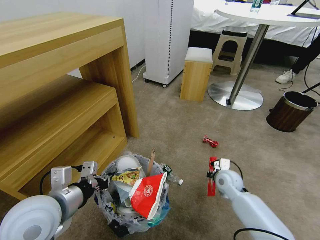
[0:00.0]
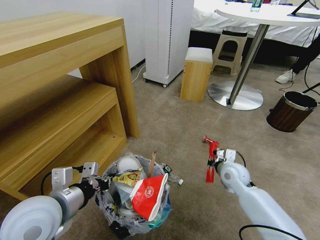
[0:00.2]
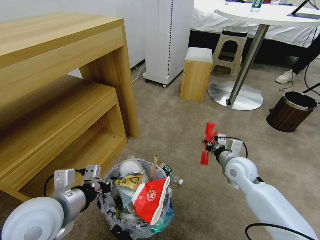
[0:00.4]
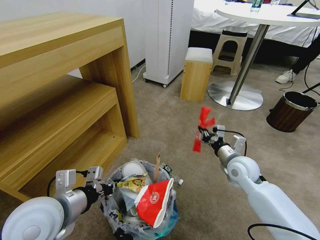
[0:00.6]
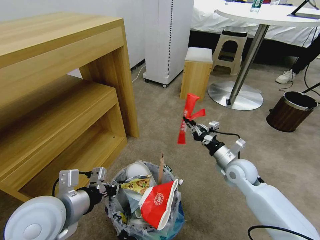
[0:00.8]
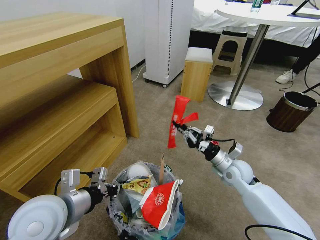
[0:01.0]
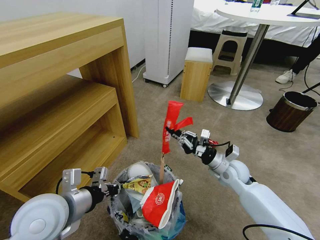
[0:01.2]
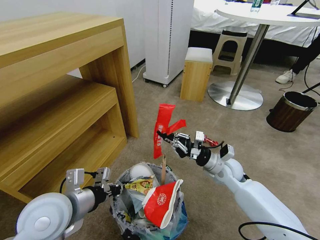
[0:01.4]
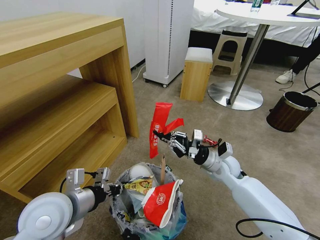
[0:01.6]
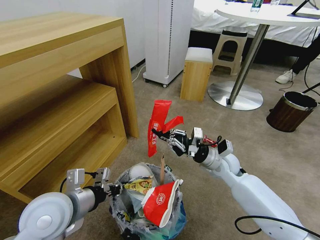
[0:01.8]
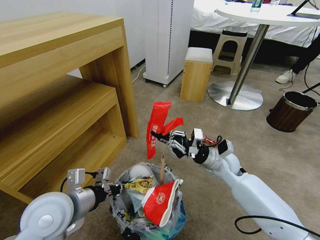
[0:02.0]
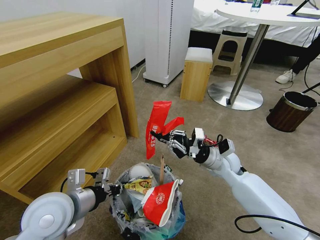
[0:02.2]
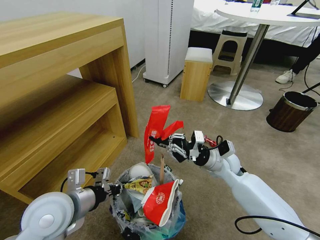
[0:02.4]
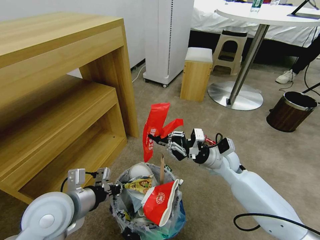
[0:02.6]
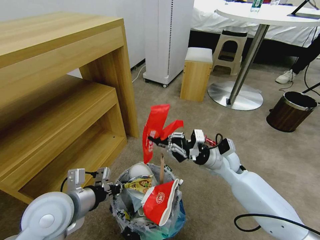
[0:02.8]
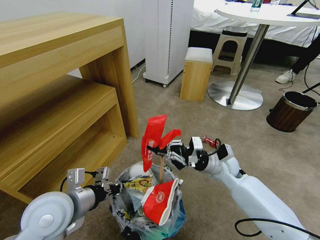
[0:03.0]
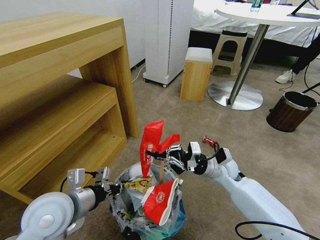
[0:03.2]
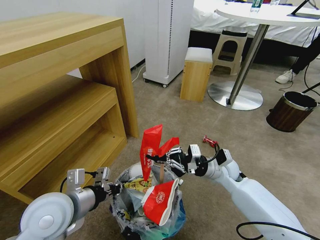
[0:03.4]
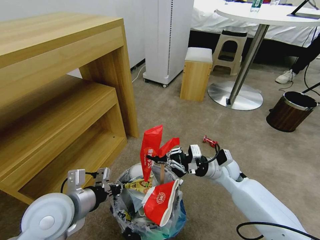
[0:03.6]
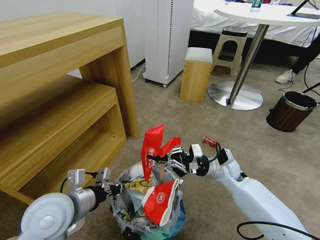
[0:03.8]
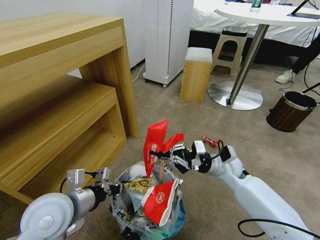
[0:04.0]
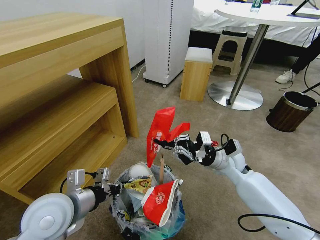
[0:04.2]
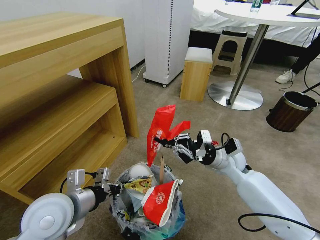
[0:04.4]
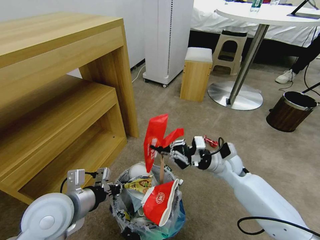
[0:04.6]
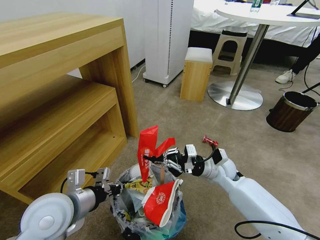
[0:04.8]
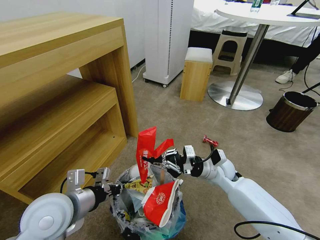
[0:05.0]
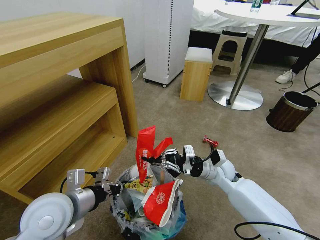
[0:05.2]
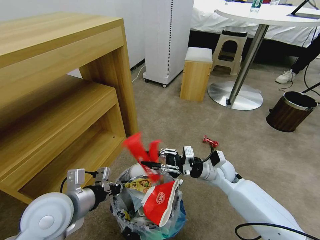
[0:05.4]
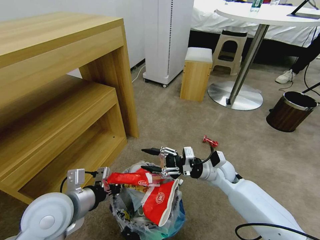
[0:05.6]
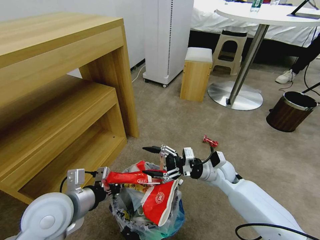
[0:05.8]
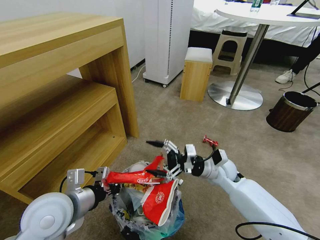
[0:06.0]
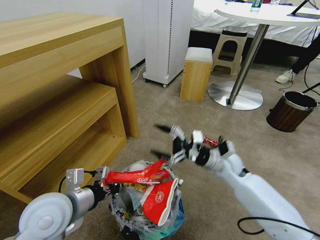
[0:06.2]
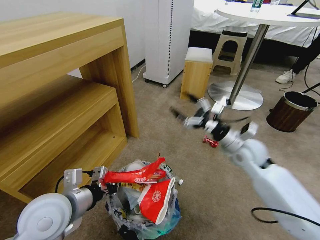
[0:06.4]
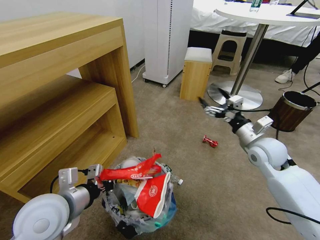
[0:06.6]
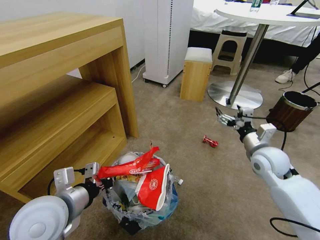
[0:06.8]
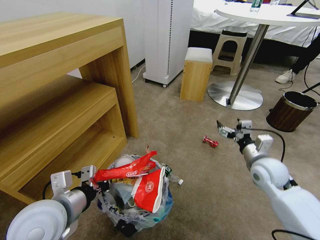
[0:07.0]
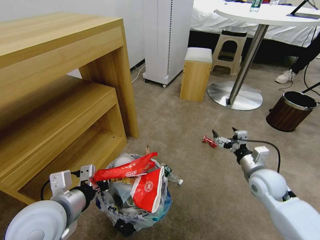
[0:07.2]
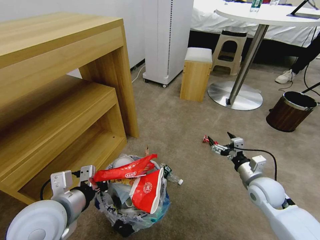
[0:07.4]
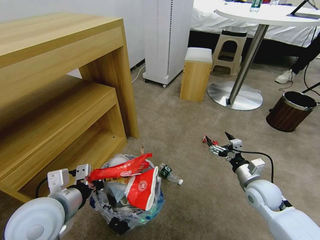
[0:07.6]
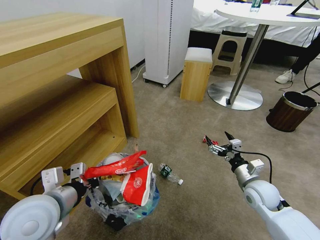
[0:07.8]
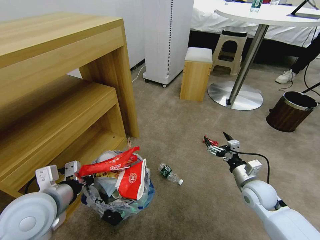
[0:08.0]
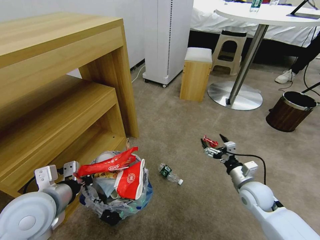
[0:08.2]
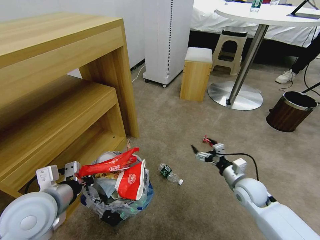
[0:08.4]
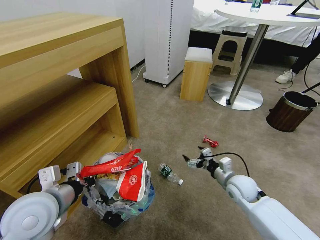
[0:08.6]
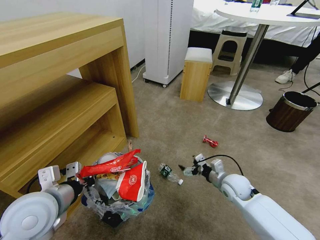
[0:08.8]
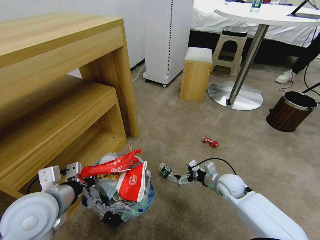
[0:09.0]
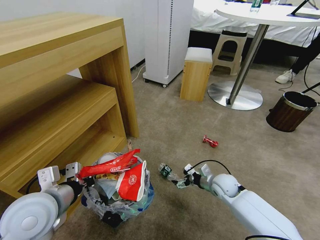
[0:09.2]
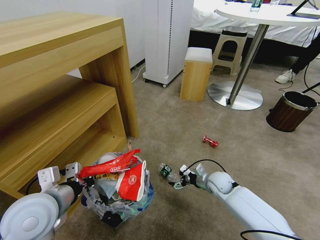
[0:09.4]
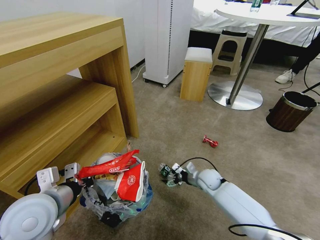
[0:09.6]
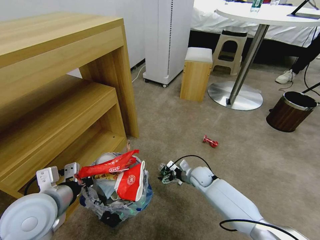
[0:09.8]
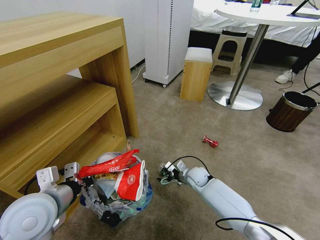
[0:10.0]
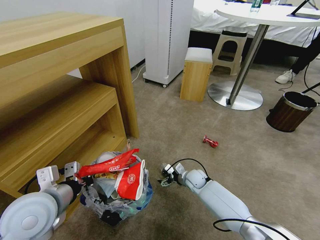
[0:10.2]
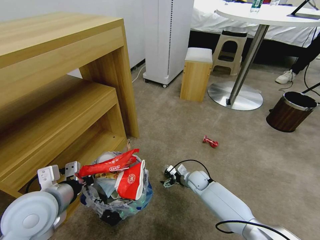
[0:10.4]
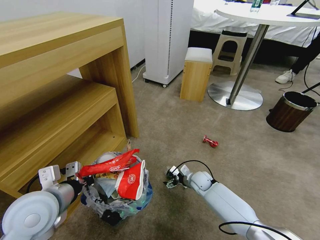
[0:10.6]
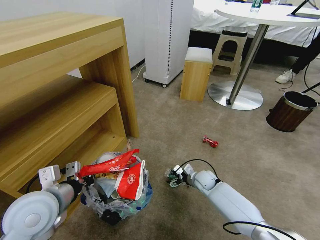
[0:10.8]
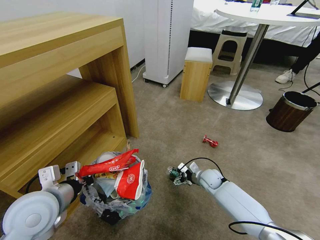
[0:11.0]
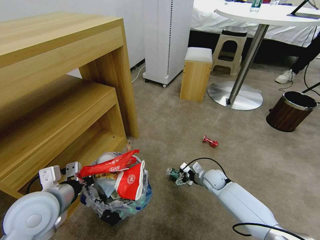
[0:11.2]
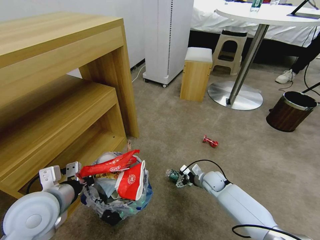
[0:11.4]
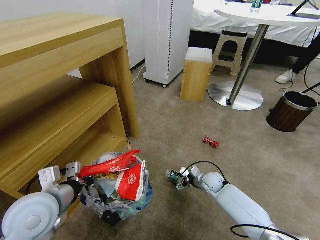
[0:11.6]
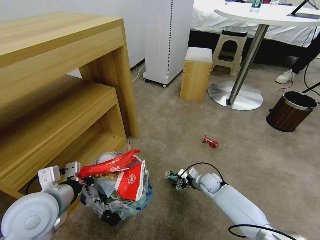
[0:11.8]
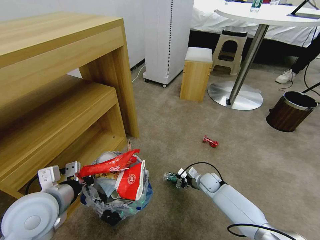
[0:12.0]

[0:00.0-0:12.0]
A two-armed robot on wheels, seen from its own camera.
Task of the whole recording: Pick up the trash bin and place the garbage on the floor into it.
0:00.0 to 0:01.6: The right gripper shifts roughly 10 cm upward.
0:01.6 to 0:04.4: The grippers make only small movements.
0:04.4 to 0:06.0: The right gripper opens.
0:06.0 to 0:07.6: The right gripper heads to the right and backward, covering about 15 cm.
0:07.6 to 0:09.0: The right gripper is displaced to the left, downward and forward by approximately 10 cm.
0:09.0 to 0:10.4: The right gripper heads to the left, downward and forward, covering some 15 cm.
0:10.4 to 0:12.0: The right gripper moves to the right, roughly 5 cm.

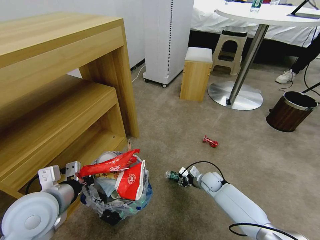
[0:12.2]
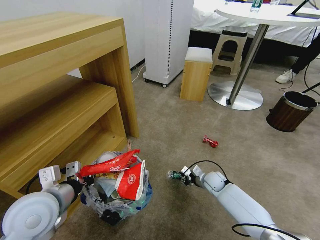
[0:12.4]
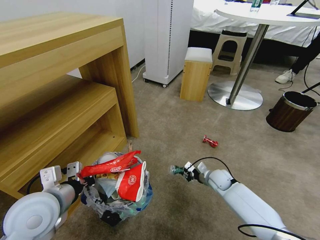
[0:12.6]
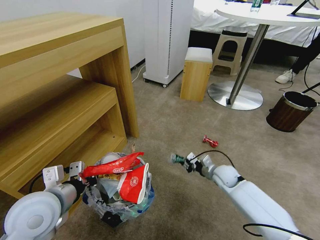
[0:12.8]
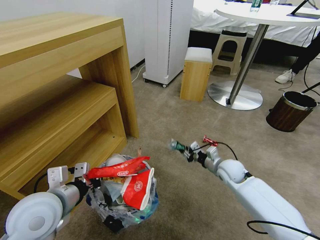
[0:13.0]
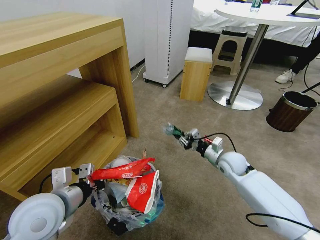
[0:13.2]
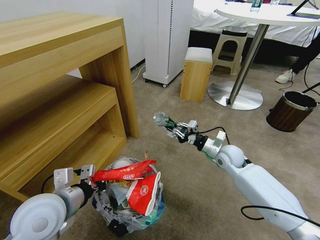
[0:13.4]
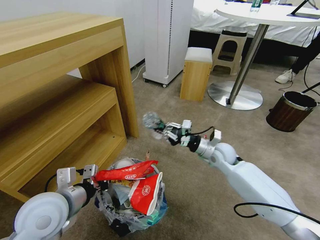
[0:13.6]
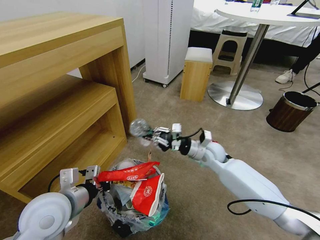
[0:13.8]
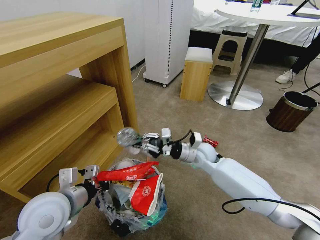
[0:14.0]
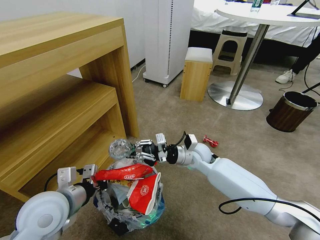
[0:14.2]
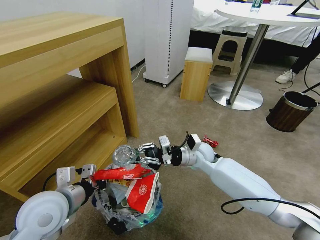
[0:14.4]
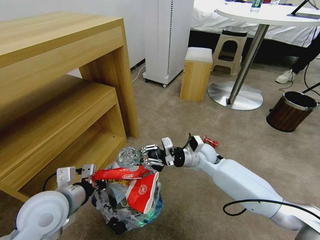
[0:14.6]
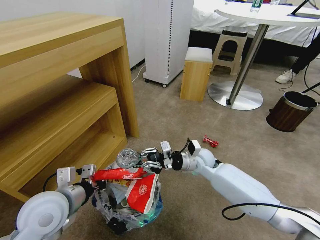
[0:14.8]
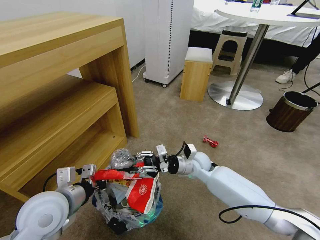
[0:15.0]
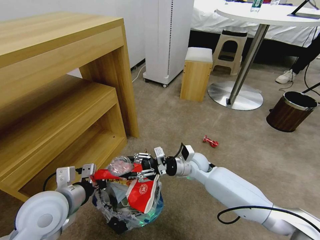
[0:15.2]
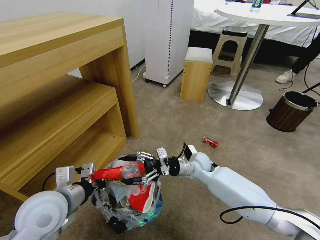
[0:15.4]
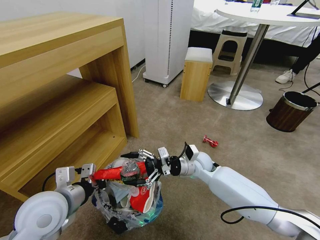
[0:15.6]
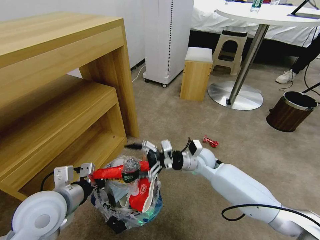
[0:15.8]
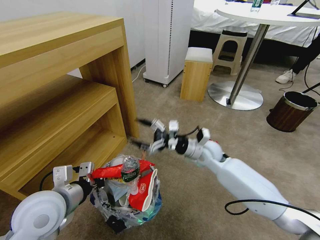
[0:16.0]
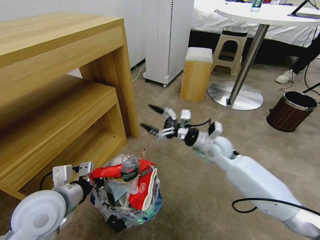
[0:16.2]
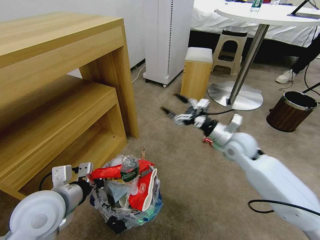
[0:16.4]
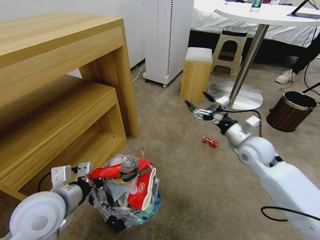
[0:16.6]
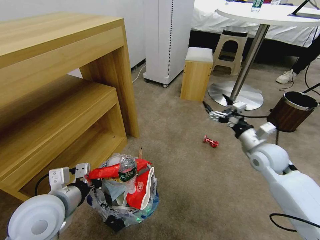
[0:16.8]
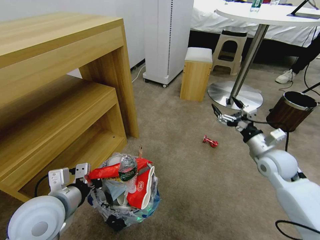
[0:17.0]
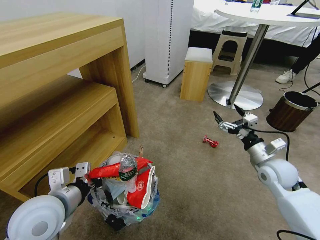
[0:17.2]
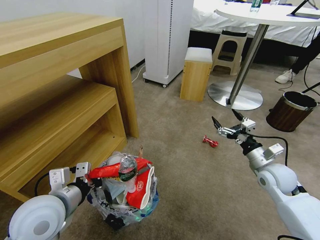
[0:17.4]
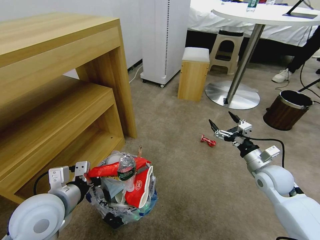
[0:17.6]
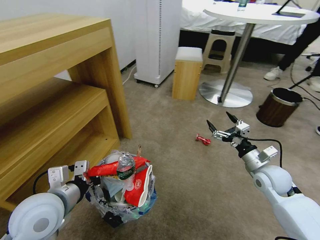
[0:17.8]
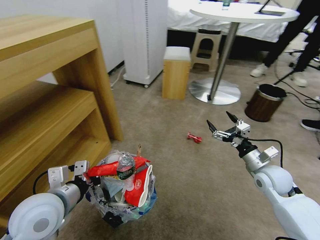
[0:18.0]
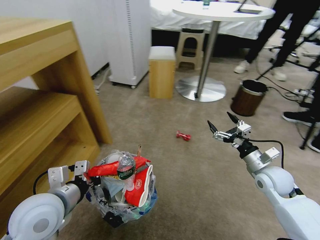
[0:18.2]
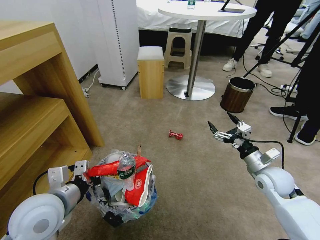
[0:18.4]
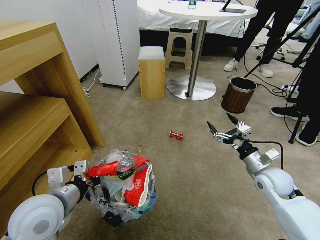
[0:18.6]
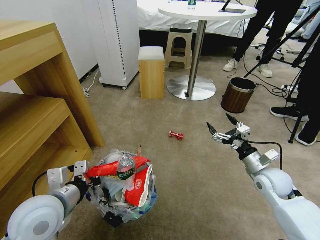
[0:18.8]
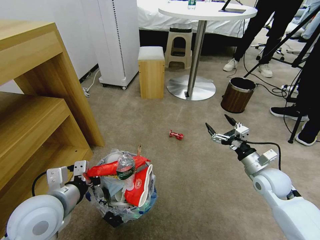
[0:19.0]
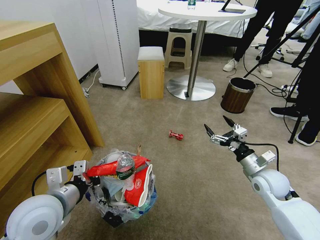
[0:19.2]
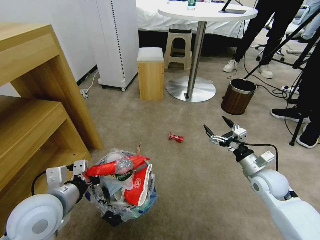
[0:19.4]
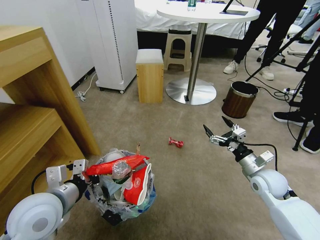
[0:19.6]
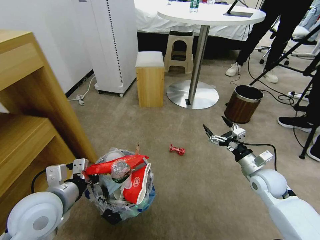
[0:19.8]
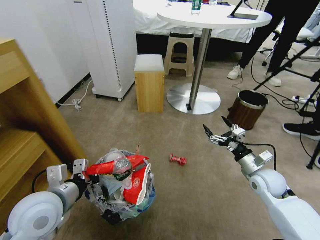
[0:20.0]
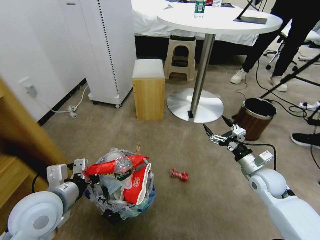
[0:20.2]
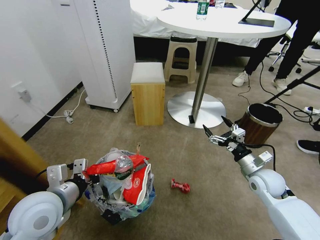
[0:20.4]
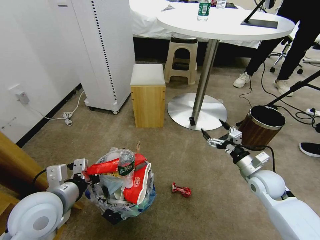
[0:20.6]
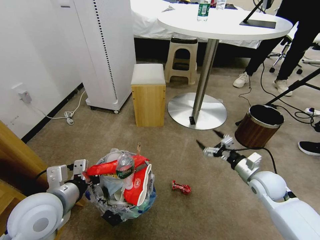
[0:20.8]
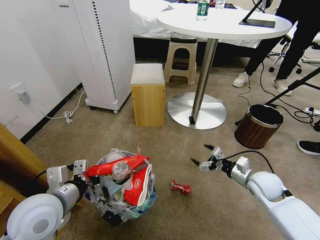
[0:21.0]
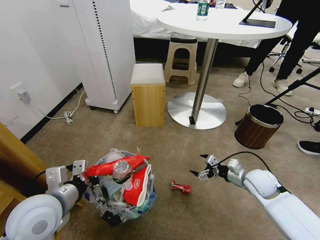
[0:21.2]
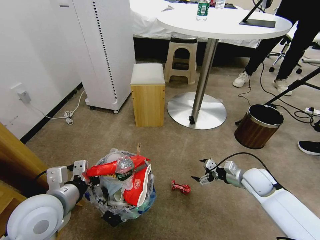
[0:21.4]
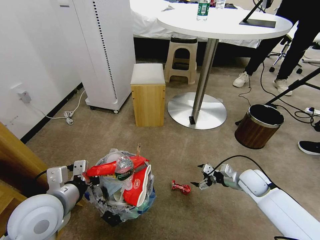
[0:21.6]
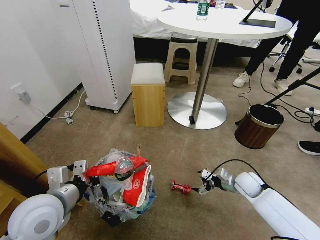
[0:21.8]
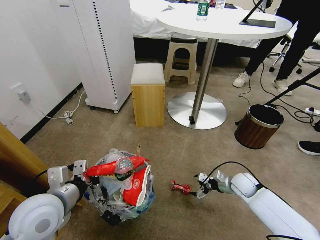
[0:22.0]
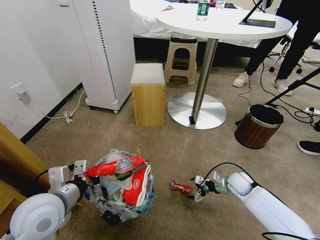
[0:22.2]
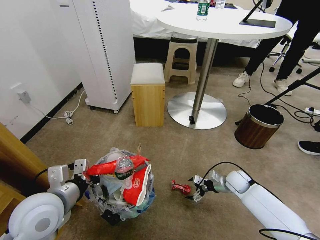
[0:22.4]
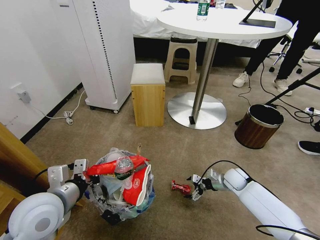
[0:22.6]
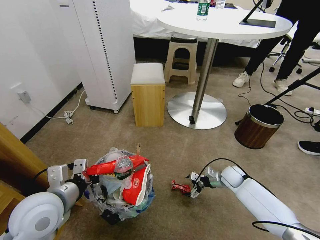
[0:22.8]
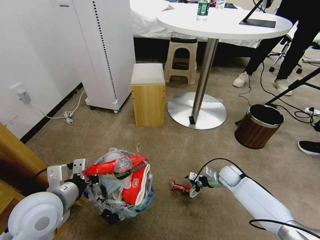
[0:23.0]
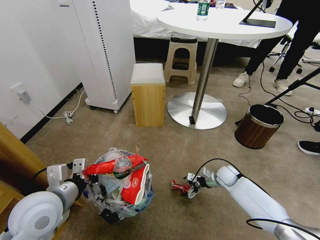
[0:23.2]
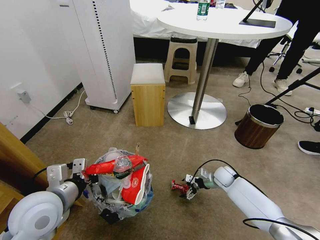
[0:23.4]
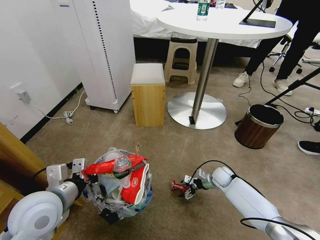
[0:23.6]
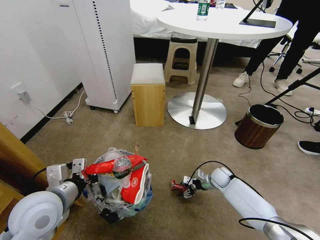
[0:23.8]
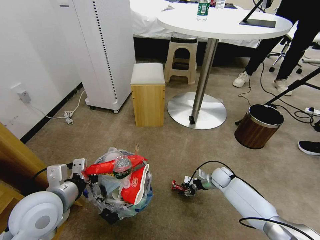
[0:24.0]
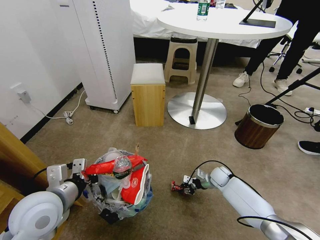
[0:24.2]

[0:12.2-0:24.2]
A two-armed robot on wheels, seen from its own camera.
Task of the whole recording: Pick up the trash bin and place the garbage on the floor into it.
0:12.2 to 0:13.8: The right gripper is displaced upward by approximately 20 cm.
0:13.8 to 0:15.2: The right gripper moves to the left, approximately 5 cm, and opens its fingers.
0:15.2 to 0:16.6: The right gripper goes approximately 20 cm to the right and upward, and opens.
0:16.6 to 0:18.2: The right gripper heads downward, to the right and backward, covering some 10 cm.
0:21.2 to 0:22.6: The right gripper moves downward and forward, about 15 cm.
0:22.6 to 0:24.2: The right gripper moves some 5 cm, and closes its fingers.
